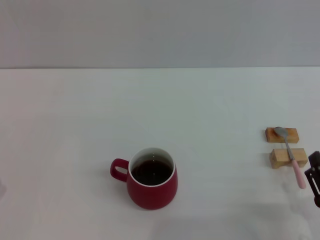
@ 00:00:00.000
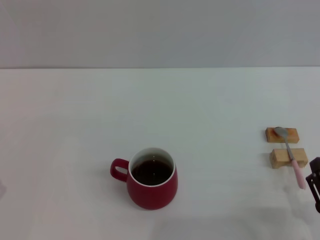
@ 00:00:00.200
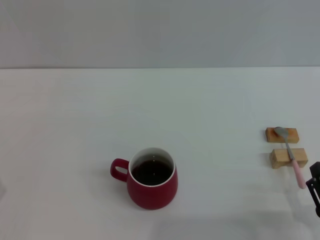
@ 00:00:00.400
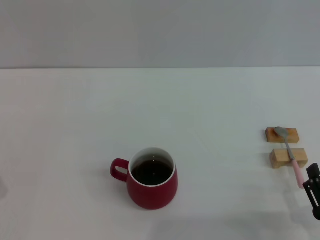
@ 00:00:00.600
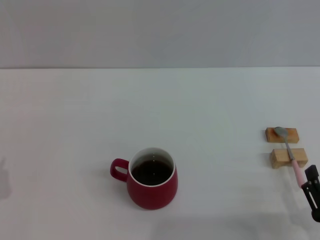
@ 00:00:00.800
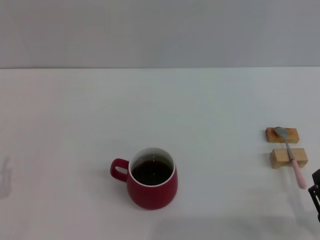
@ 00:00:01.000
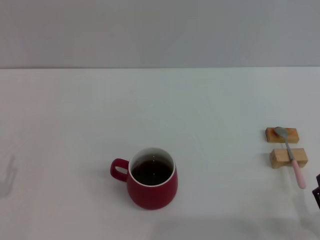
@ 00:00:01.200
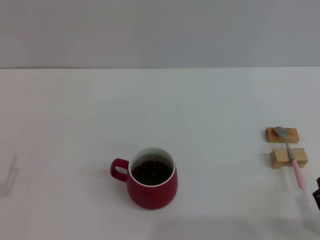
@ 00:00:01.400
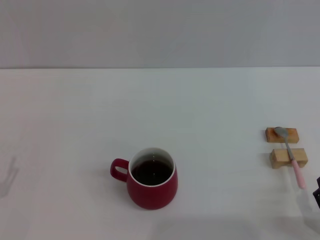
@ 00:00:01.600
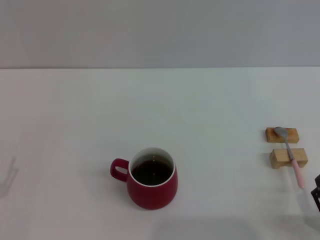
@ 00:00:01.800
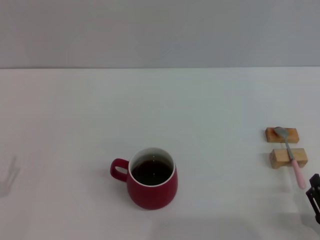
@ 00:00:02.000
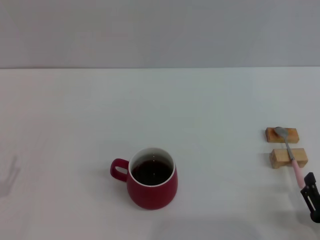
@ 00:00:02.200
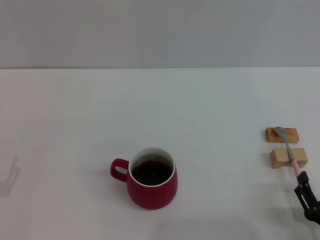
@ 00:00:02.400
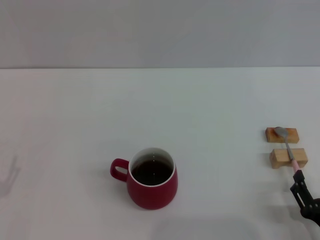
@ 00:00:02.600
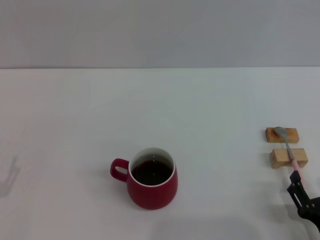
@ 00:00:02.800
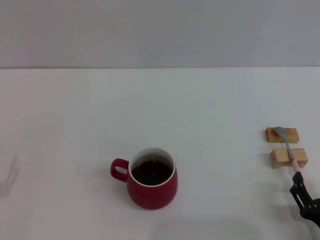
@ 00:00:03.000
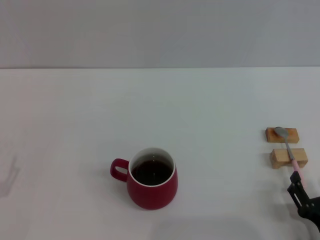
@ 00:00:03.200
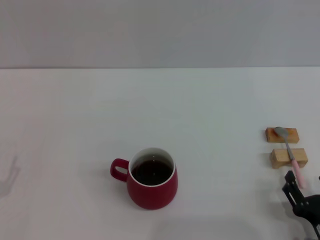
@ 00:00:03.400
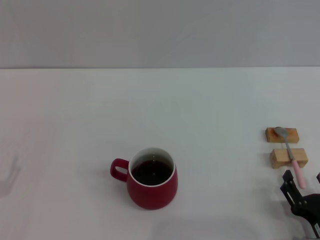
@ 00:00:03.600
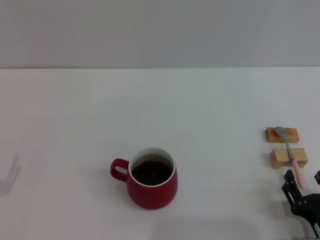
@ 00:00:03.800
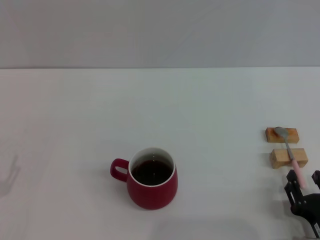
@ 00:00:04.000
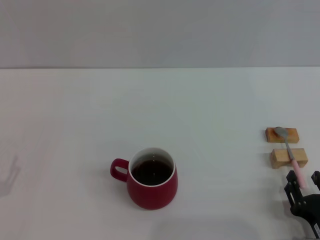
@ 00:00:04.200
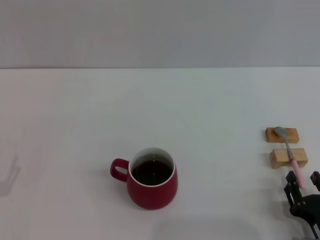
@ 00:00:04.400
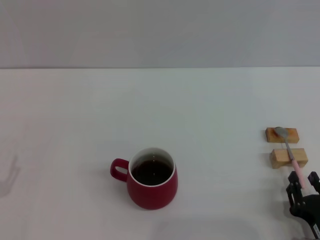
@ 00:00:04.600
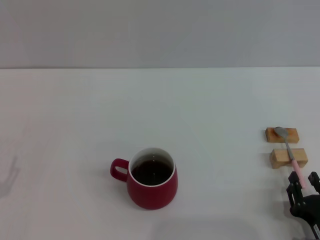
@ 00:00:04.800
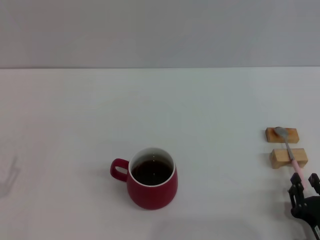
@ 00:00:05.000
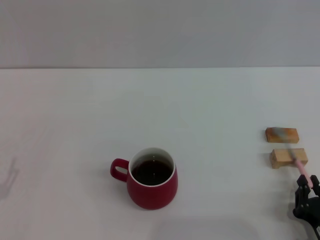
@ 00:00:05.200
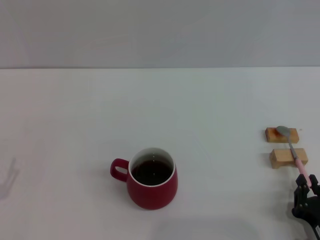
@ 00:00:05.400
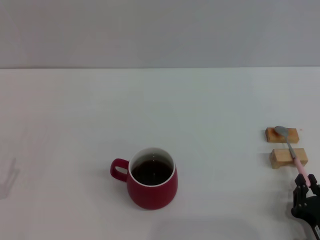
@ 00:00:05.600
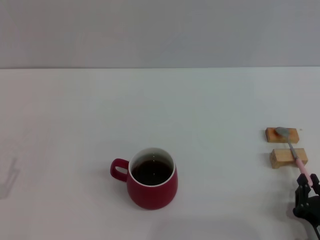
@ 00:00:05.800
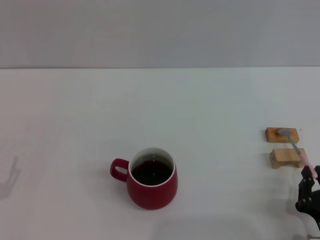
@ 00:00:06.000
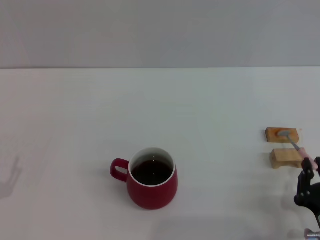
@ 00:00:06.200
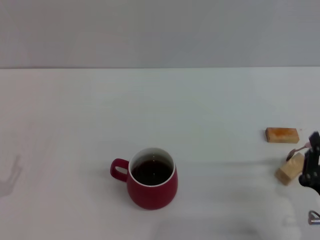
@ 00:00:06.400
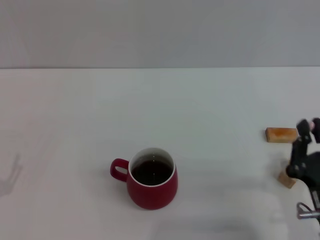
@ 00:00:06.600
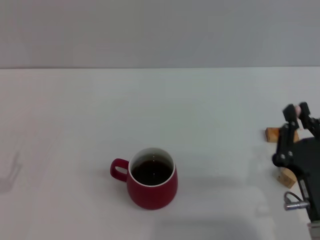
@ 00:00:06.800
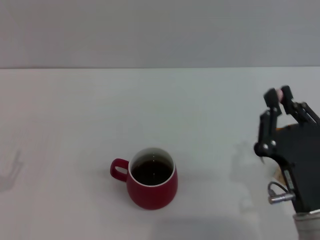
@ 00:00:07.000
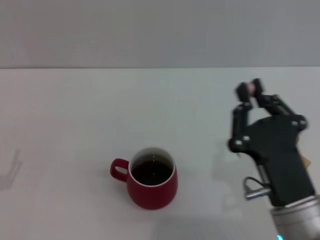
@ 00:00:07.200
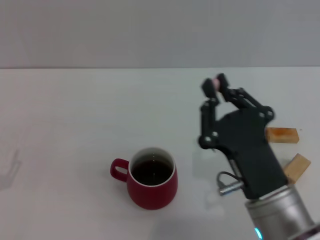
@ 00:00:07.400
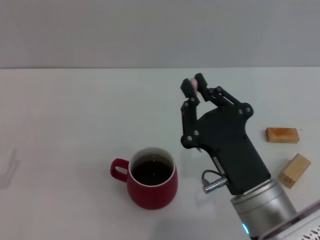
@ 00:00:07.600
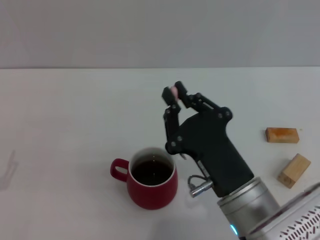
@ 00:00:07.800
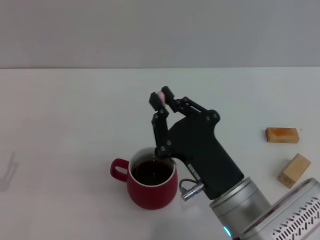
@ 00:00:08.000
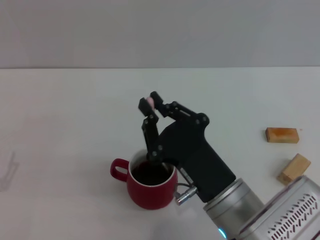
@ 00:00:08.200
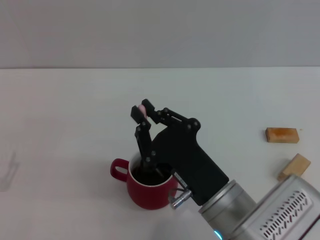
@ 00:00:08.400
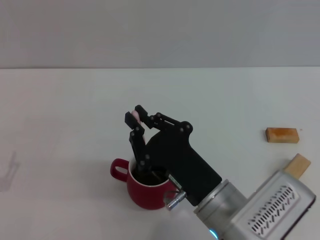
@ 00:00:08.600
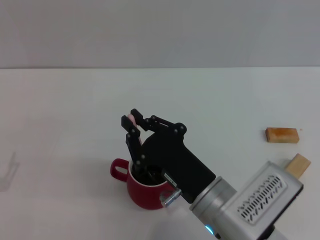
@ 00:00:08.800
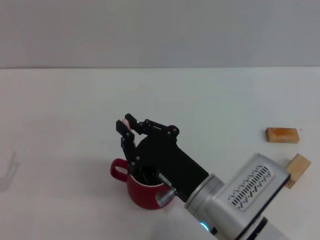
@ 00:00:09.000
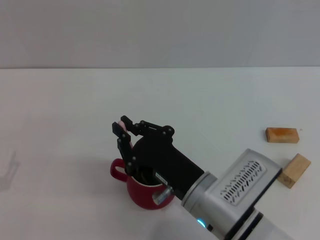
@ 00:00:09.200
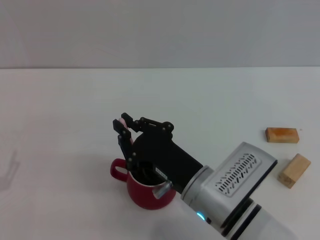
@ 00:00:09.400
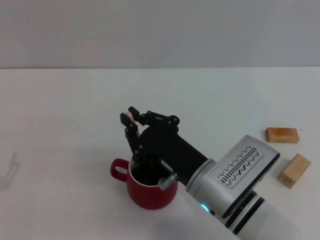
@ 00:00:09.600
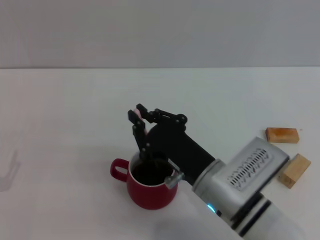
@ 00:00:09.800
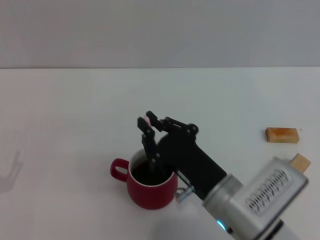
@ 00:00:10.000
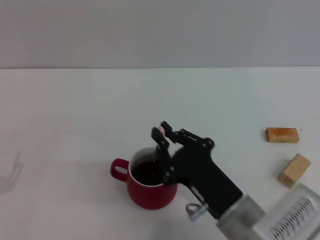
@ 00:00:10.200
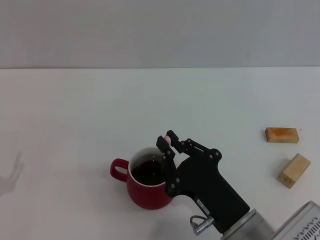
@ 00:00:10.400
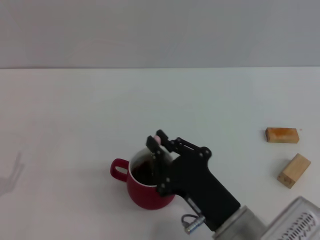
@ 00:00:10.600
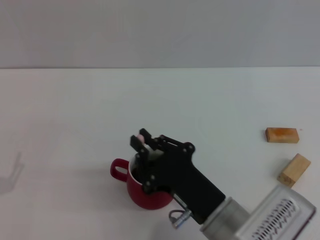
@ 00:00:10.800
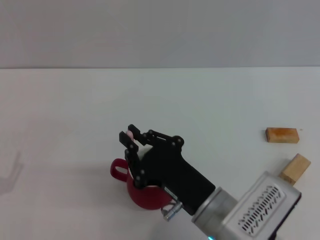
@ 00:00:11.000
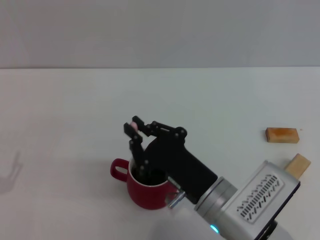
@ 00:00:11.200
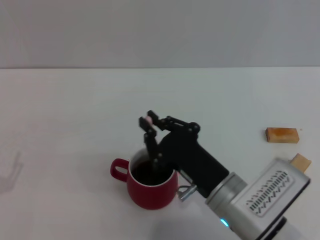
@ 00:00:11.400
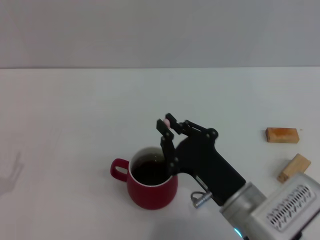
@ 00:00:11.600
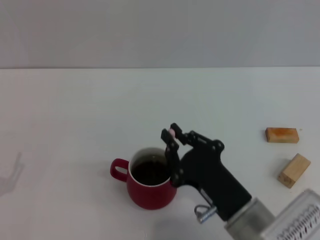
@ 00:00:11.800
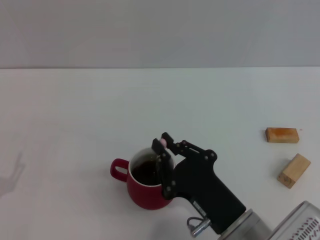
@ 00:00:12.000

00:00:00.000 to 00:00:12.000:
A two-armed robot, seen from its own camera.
Task of the whole recording: Move the red cup to the center, lift the pink spoon, stir it three times in the cup, and put the spoon into the cup.
Step, 00:00:00.000 to 00:00:07.200: Pick up the spoon with the right gripper.
00:00:01.600 to 00:00:03.000: The grippers stay close to where they were, moving slightly.
00:00:03.000 to 00:00:04.400: The right gripper closes its fingers.
00:00:04.400 to 00:00:06.000: The right gripper closes.
00:00:06.000 to 00:00:07.600: The right gripper moves to the left and upward, about 15 cm.
00:00:07.600 to 00:00:09.000: The right gripper moves some 5 cm.
00:00:09.000 to 00:00:10.400: The right gripper ends up roughly 5 cm from where it was.
00:00:10.400 to 00:00:12.000: The grippers move only a little.

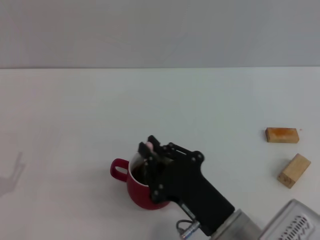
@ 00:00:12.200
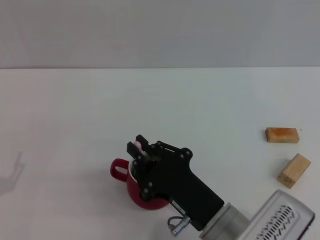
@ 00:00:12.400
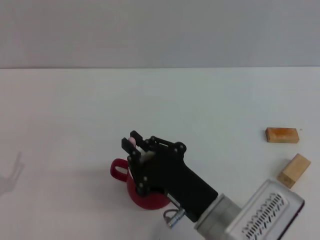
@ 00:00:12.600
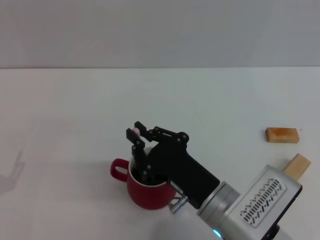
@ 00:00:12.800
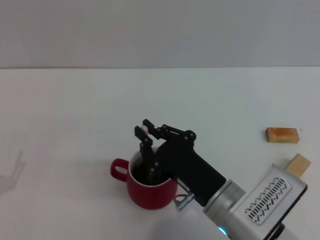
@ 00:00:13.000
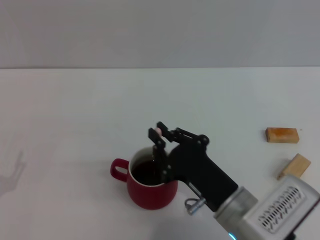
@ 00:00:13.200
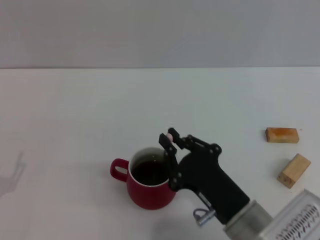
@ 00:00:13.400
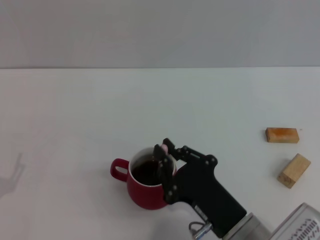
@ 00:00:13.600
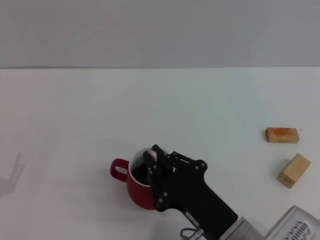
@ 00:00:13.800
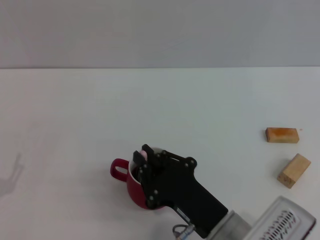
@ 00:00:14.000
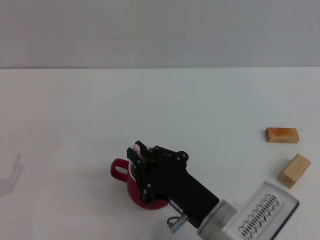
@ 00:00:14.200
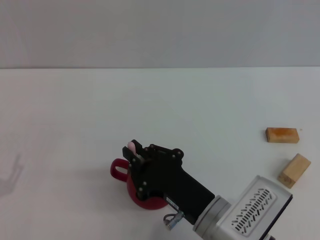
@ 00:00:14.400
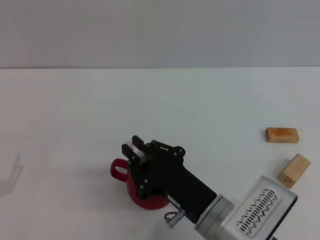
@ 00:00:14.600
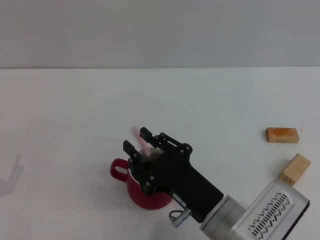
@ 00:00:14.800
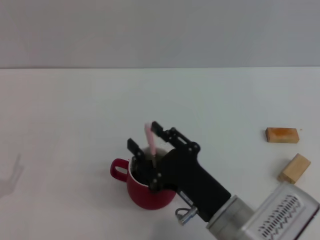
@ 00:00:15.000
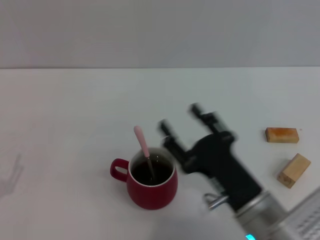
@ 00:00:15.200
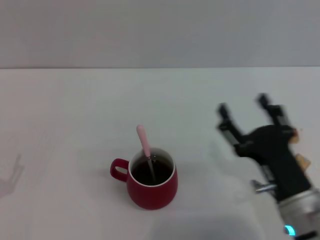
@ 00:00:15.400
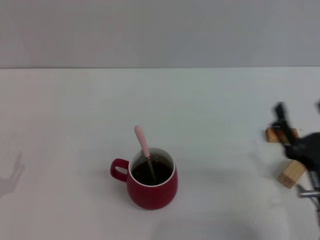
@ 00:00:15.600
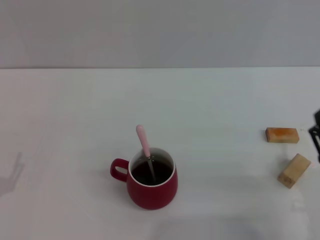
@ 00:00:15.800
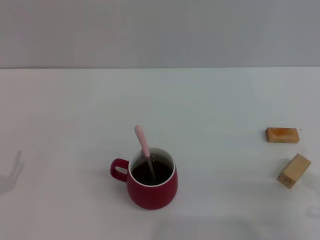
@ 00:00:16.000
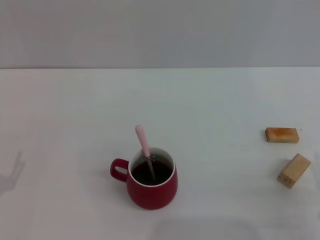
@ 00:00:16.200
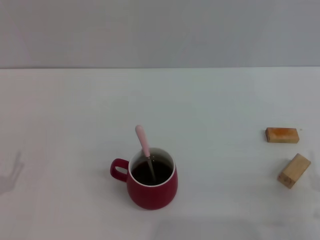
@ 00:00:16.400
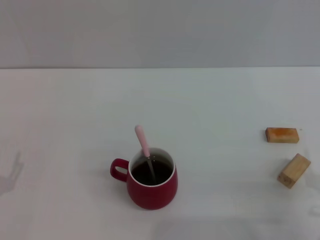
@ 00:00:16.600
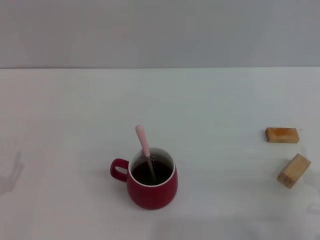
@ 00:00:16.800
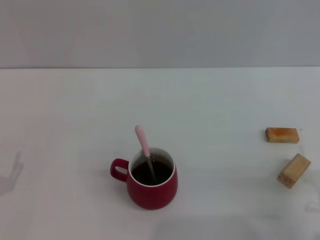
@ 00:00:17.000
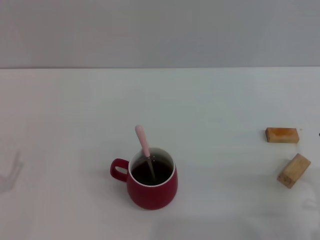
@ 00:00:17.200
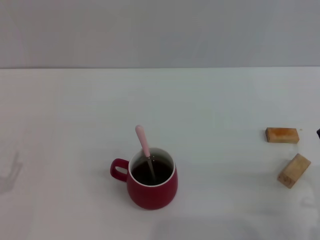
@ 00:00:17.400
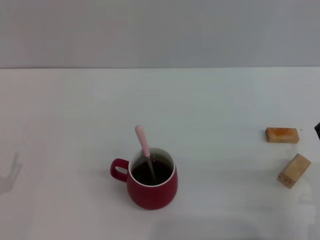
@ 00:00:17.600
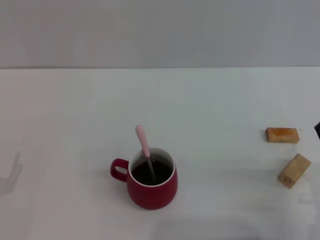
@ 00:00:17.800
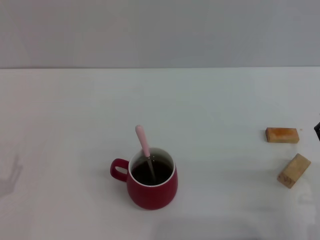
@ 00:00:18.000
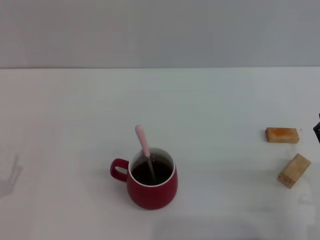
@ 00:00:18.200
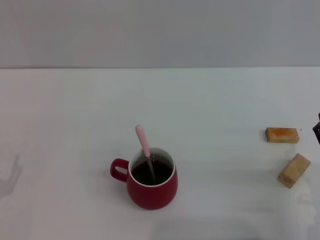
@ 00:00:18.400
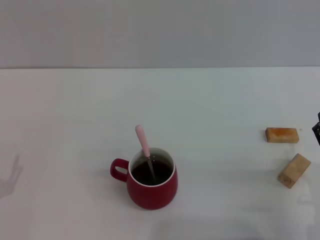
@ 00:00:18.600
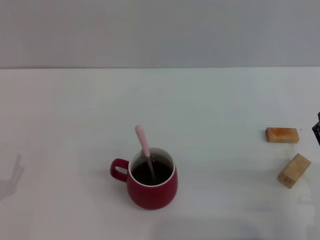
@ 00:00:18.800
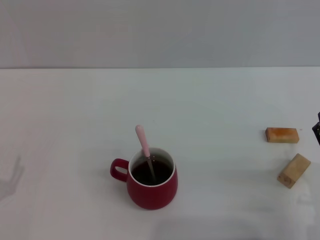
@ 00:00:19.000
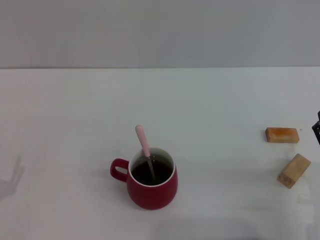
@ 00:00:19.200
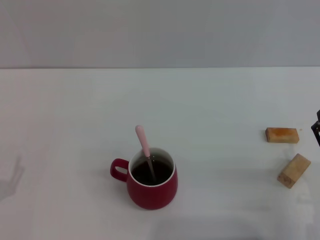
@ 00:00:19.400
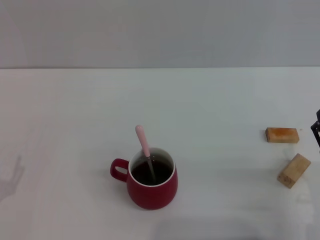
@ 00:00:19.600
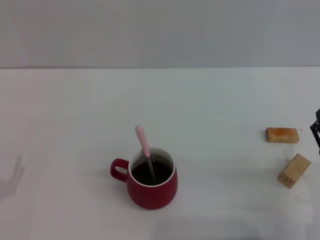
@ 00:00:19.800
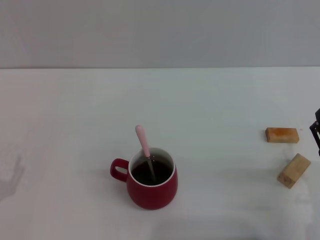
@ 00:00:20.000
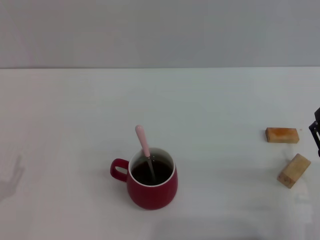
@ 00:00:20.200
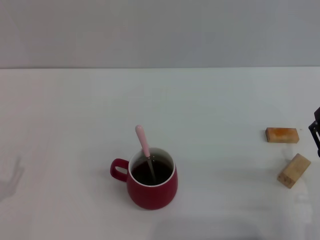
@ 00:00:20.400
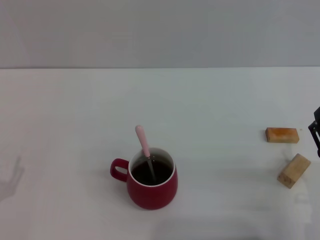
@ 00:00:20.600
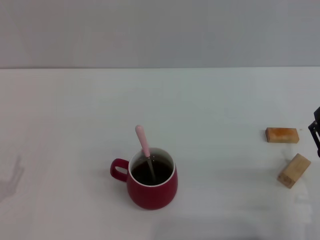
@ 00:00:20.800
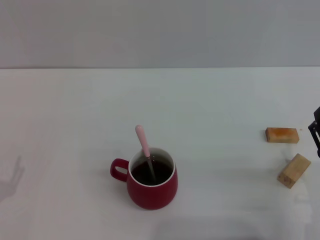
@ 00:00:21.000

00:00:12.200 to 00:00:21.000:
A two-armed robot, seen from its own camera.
Task of the whole recording: Move the red cup to the center, lift the pink spoon, stir it three times in the cup, and put the spoon into the cup.
Step, 00:00:12.200 to 00:00:15.000: Stir the coffee in the cup with the right gripper.
00:00:12.200 to 00:00:13.600: The grippers move only a little.
00:00:13.600 to 00:00:15.200: The right gripper opens its fingers.
00:00:15.200 to 00:00:16.600: The right gripper is displaced to the right by approximately 15 cm.
00:00:18.000 to 00:00:21.000: The two grippers keep their place.
